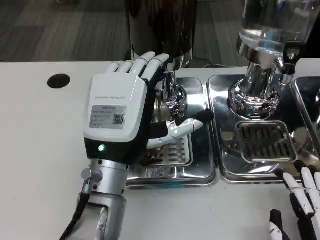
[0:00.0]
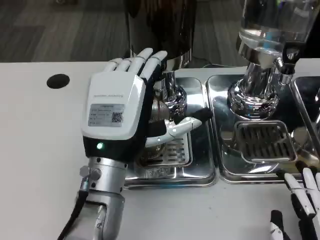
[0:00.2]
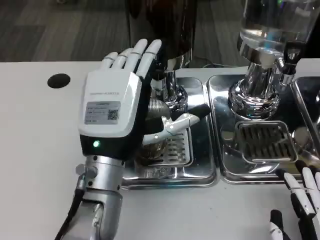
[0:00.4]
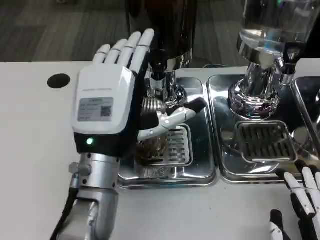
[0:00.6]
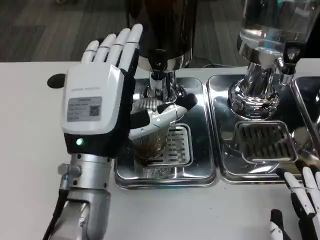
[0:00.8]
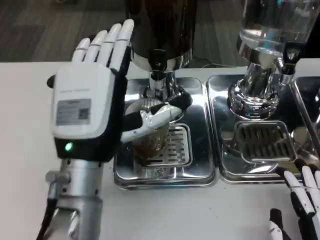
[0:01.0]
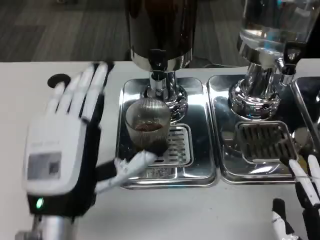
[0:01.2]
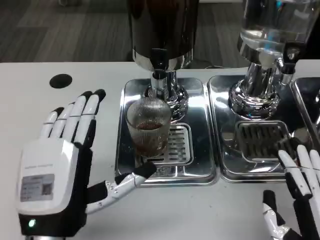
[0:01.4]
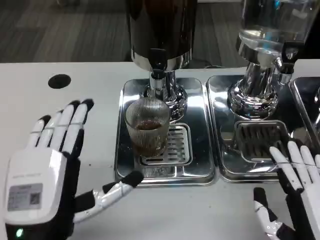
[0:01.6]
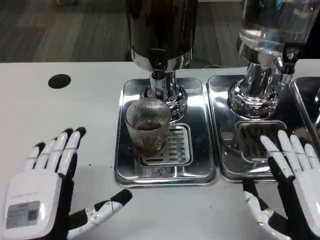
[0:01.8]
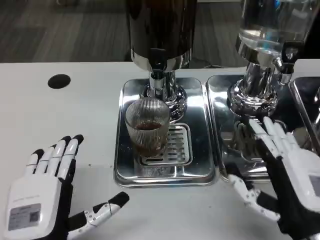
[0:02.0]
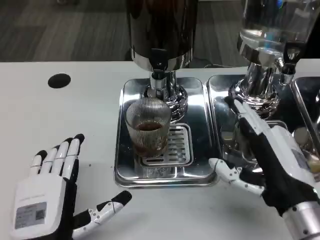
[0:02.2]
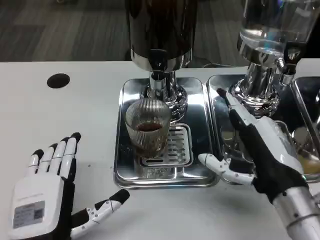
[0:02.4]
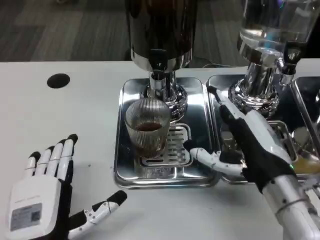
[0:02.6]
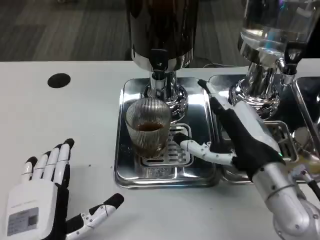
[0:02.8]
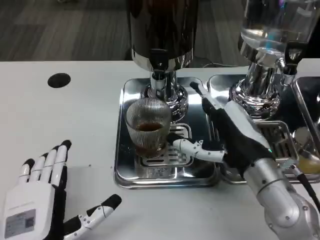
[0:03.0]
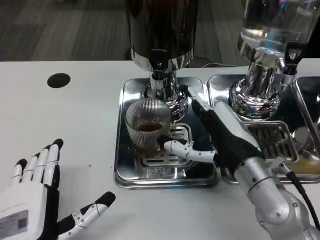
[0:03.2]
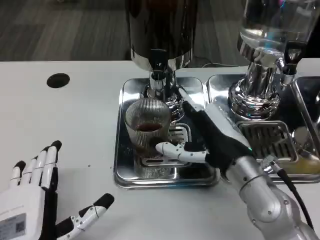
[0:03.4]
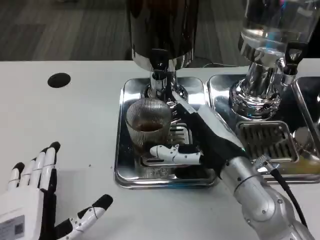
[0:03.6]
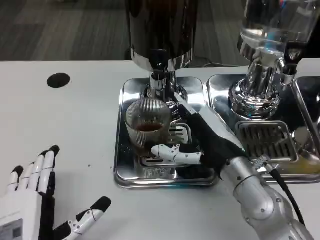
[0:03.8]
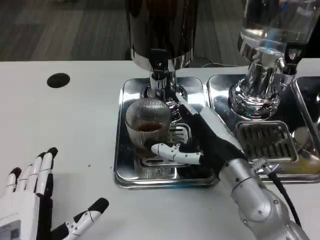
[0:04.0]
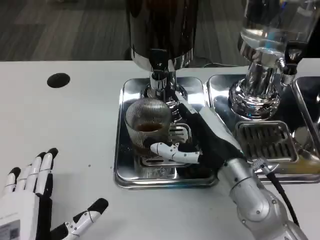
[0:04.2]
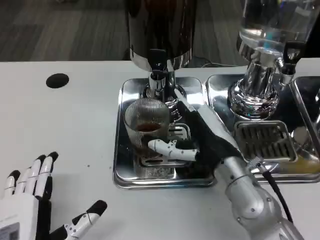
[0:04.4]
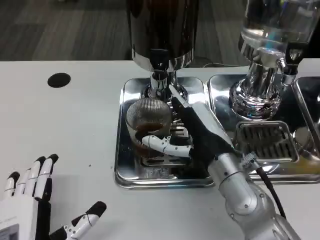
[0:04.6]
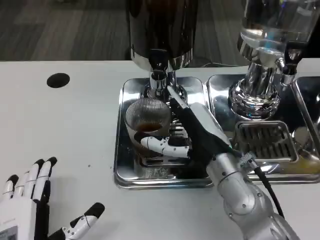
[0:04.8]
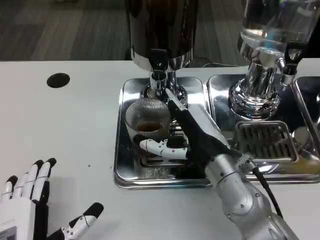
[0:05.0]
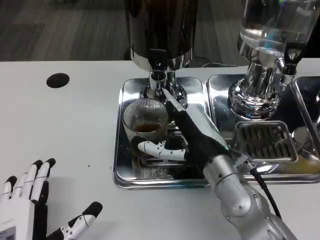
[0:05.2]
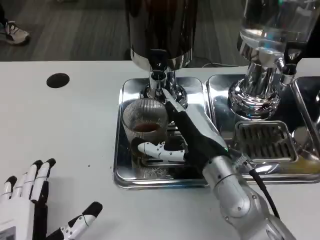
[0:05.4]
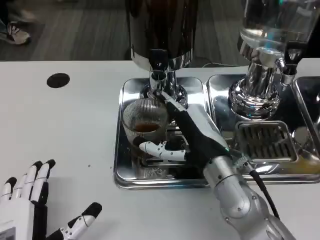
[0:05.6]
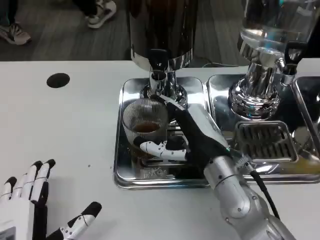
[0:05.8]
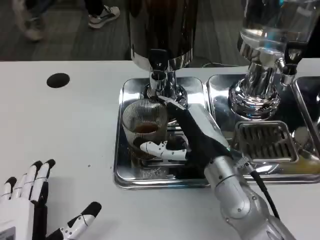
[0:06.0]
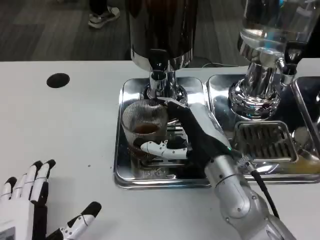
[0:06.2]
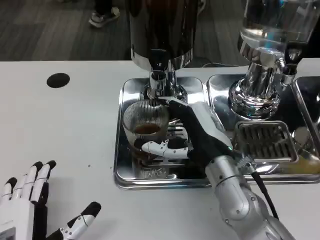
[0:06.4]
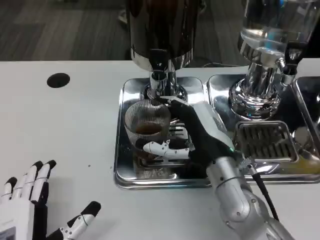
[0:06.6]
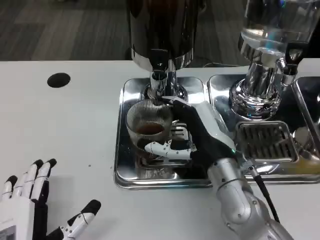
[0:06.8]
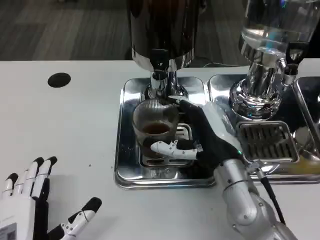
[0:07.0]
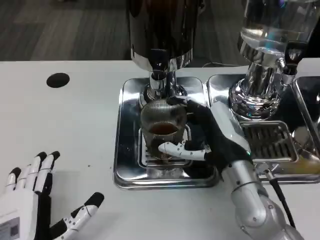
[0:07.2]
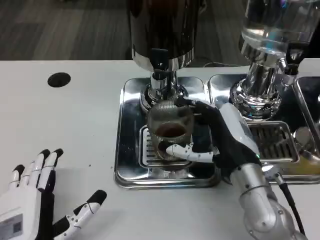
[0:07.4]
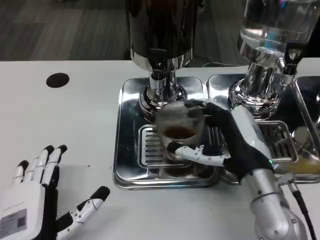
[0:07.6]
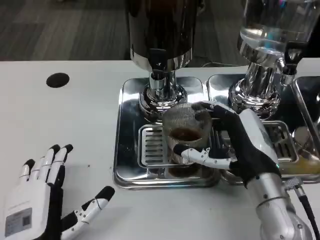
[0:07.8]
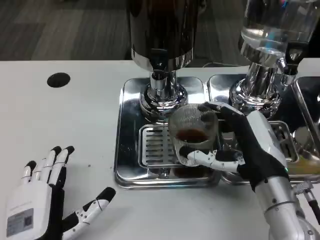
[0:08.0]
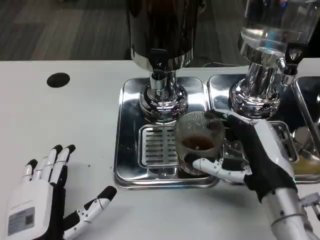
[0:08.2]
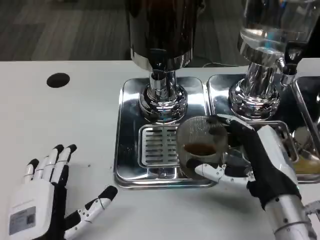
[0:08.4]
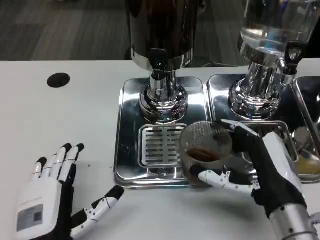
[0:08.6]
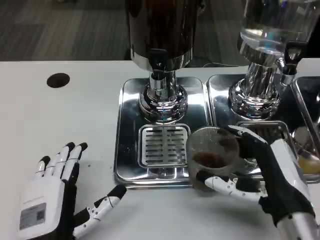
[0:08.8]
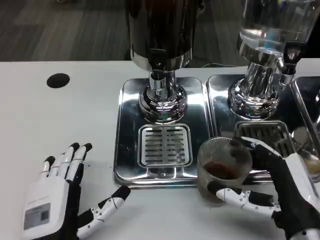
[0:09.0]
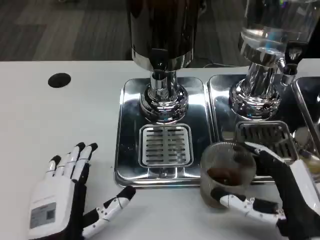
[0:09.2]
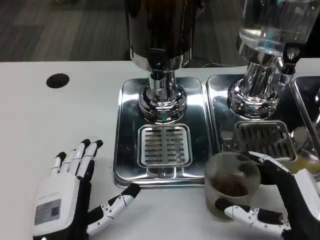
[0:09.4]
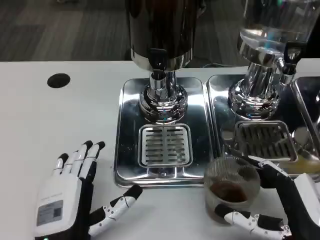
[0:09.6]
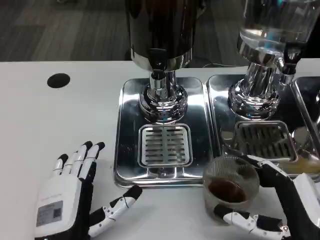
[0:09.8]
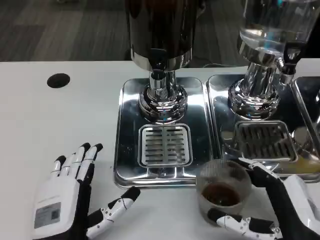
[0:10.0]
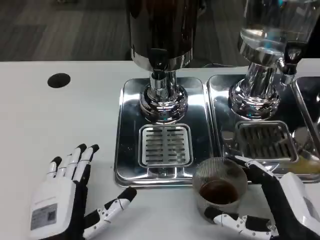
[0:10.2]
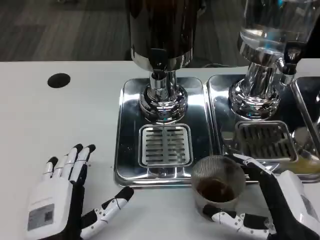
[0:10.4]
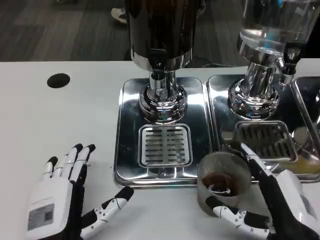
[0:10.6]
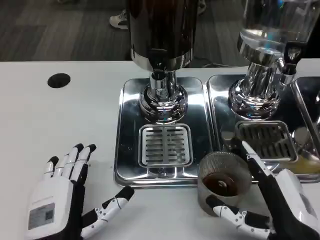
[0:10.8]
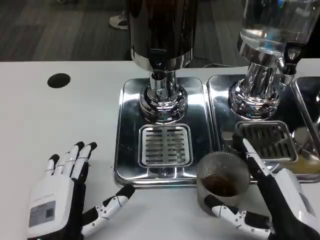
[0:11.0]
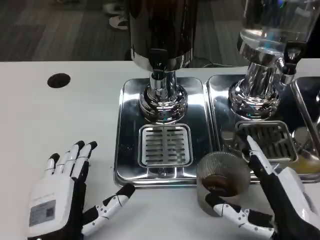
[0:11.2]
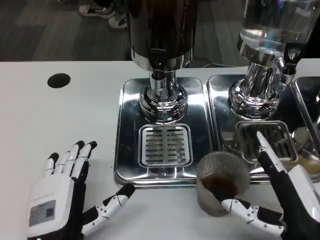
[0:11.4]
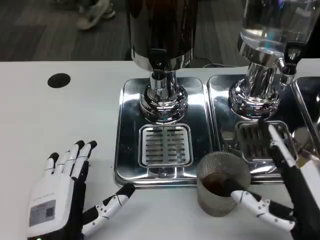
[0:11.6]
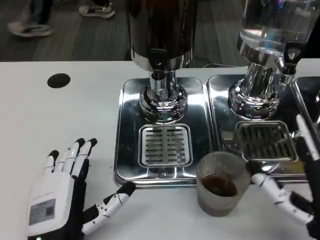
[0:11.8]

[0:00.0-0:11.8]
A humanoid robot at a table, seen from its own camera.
Task of the whole recording: Grasp the cup under the faucet to collect the drink, then remove the cup.
0:00.0 to 0:01.4: The left hand shifts about 10 cm backward and to the left.
0:01.4 to 0:03.0: The right hand shifts about 15 cm forward and to the left, while the left hand shifts roughly 5 cm downward.
0:04.4 to 0:06.0: The hands make only small movements.
0:07.4 to 0:08.8: The right hand goes roughly 10 cm backward.
0:08.8 to 0:11.8: The hands move only a little.

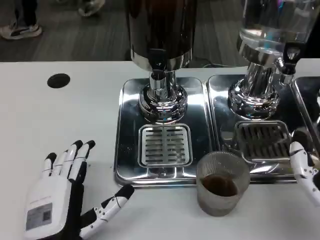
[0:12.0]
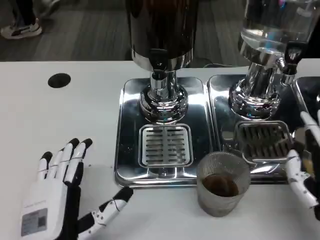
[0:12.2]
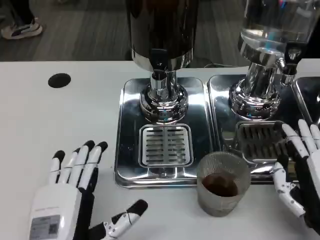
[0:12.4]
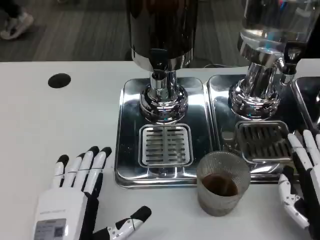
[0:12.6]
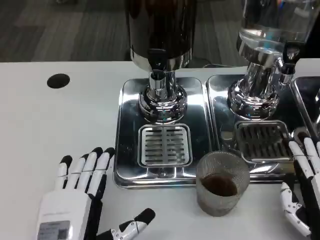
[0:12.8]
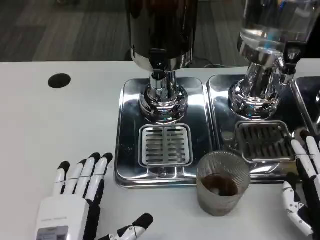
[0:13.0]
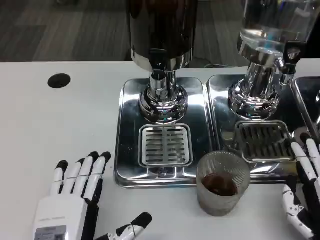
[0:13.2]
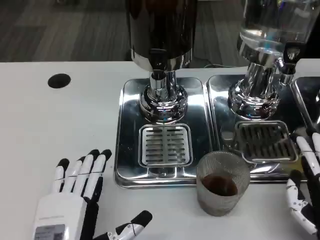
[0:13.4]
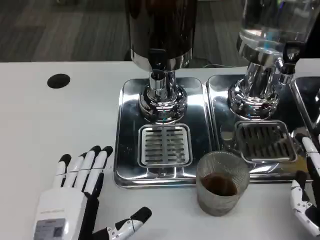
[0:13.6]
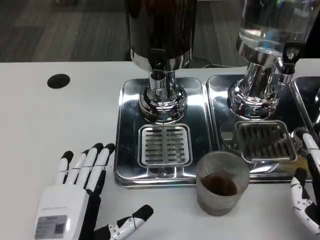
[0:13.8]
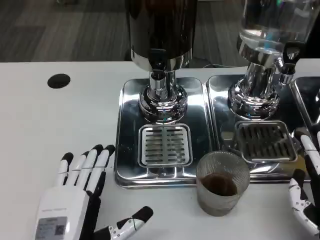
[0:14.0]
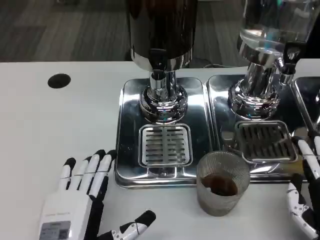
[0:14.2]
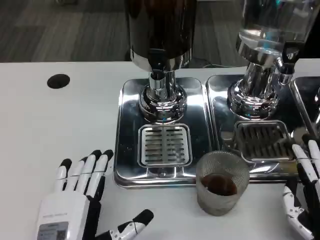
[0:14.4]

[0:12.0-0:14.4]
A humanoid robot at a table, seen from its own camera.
Task of the whole recording: Grasp the cup under the faucet to collect the drink, then remove the cup.
0:12.0 to 0:13.2: The right hand travels downward by about 5 cm.
0:13.2 to 0:14.4: The hands stay close to where they were, moving slightly.

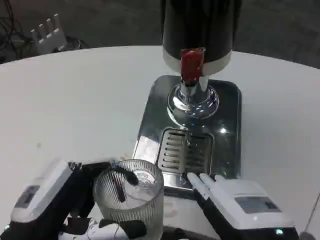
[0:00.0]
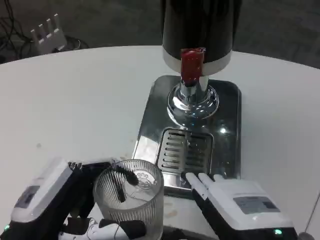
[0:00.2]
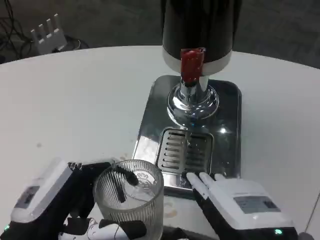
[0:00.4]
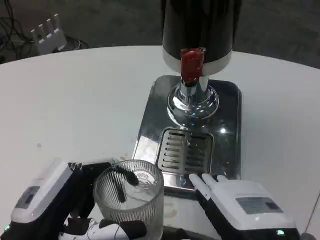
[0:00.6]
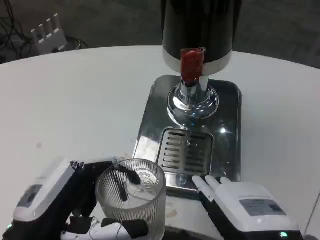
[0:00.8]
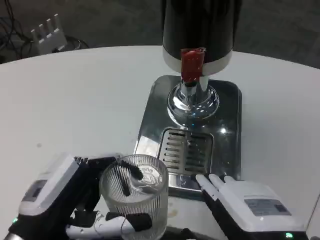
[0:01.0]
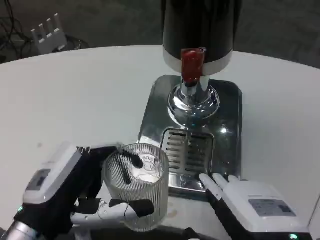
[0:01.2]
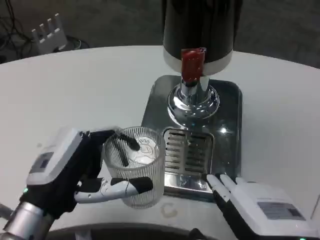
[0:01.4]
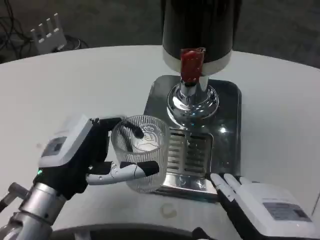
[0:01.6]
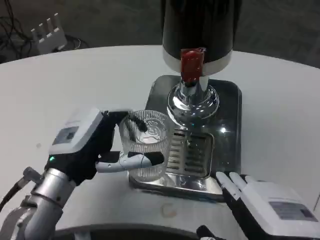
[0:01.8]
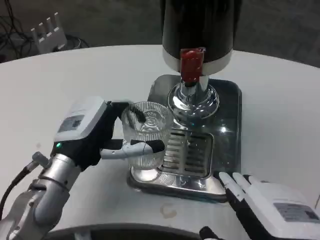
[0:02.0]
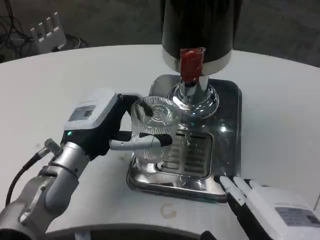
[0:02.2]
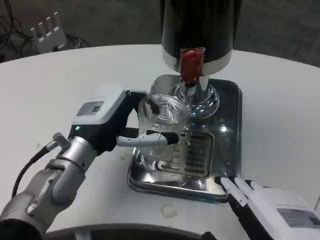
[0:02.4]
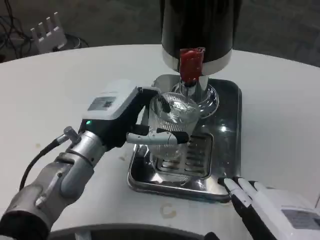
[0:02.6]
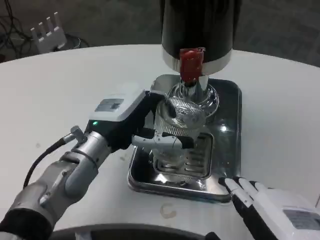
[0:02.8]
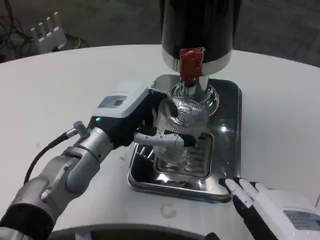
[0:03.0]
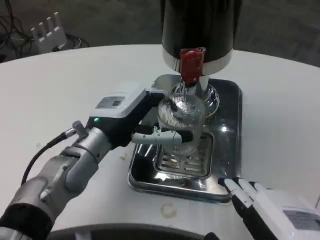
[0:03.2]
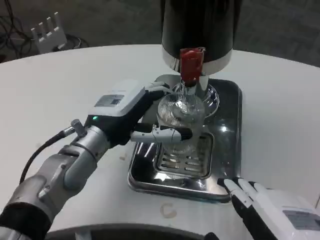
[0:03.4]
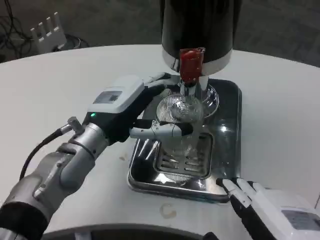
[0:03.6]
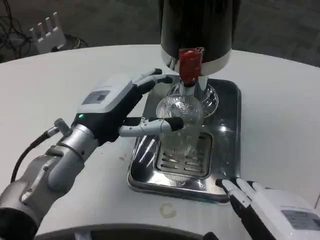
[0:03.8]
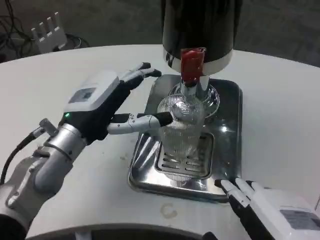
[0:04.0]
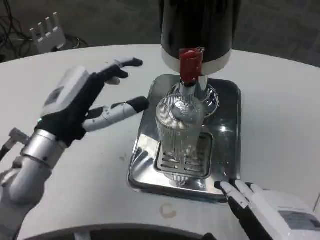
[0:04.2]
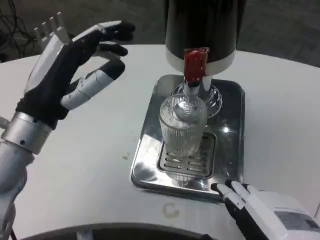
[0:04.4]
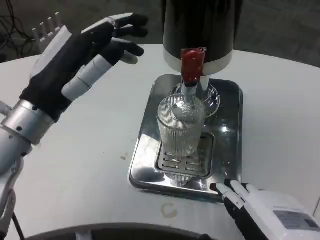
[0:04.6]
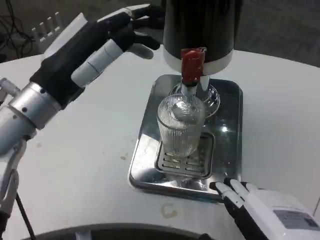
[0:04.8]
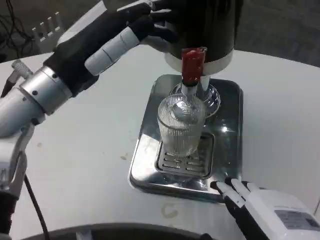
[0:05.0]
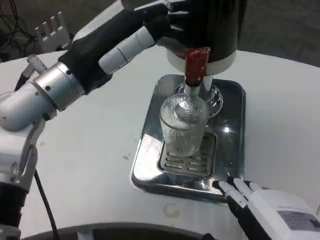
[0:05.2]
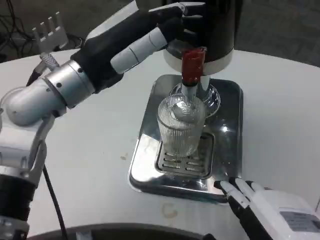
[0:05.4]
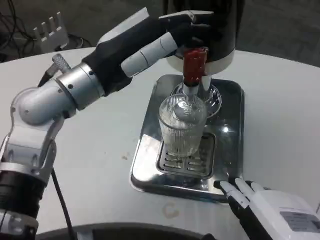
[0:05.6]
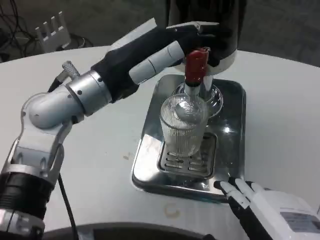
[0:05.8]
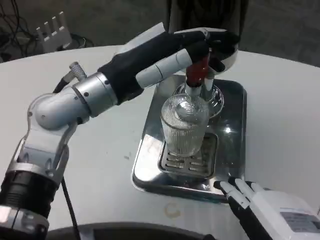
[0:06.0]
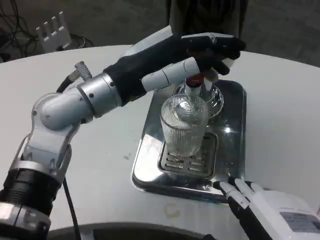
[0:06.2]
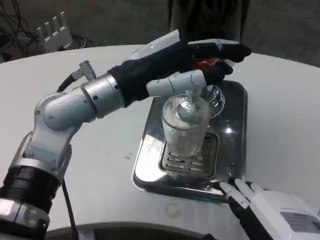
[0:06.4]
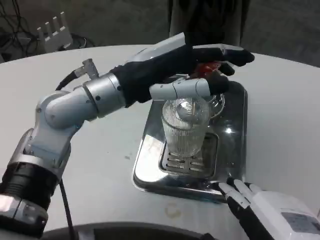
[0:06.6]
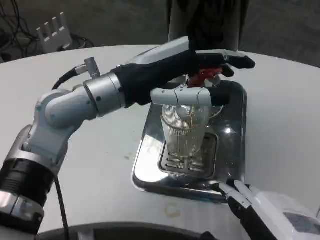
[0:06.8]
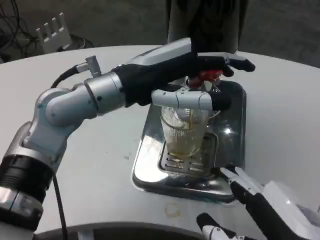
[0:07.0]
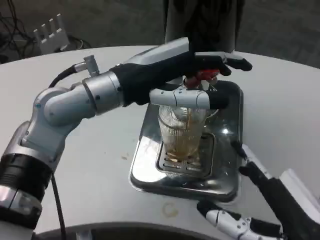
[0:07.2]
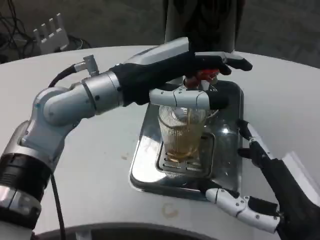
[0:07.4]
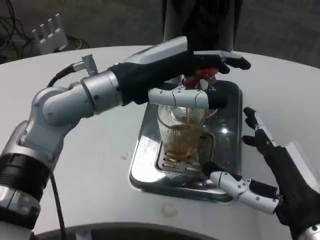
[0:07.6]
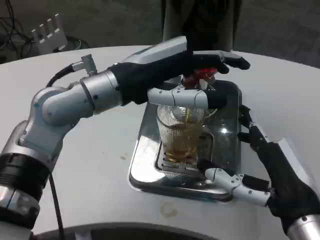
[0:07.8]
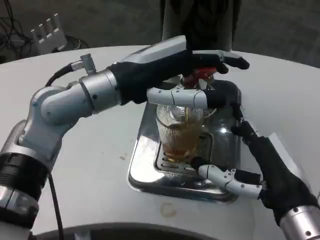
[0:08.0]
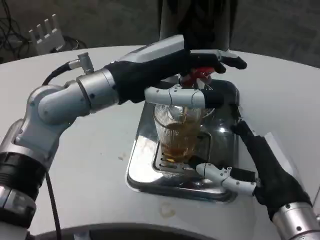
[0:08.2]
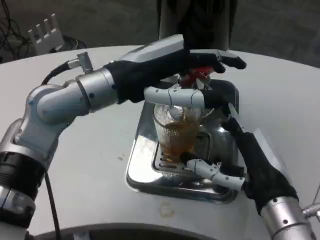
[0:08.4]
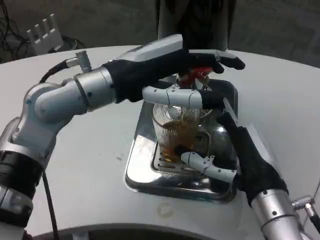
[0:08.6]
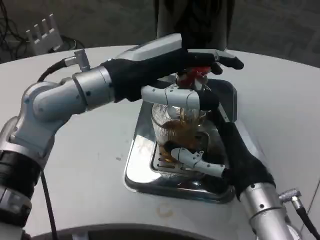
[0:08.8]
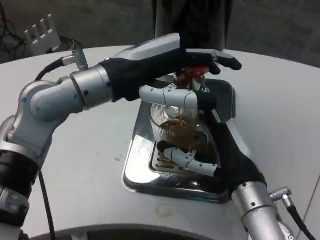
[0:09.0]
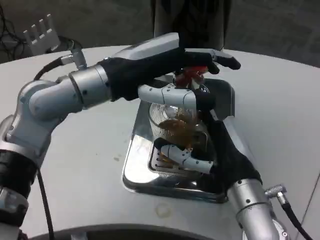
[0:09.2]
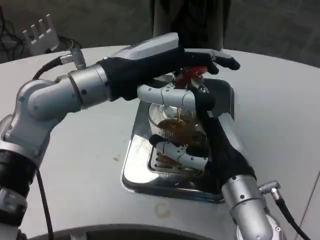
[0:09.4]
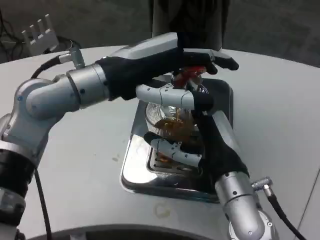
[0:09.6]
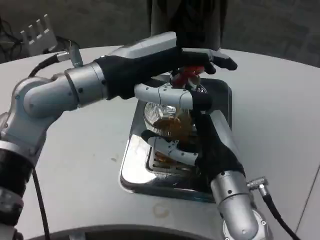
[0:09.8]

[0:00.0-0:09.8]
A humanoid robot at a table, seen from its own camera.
Task of the whole recording: Grasp the cup under the faucet to collect the drink, then remove the cup.
0:00.0 to 0:01.4: The left hand is displaced forward by some 5 cm.
0:01.4 to 0:02.8: The left hand shifts approximately 10 cm forward and to the right.
0:02.8 to 0:04.2: The left hand is displaced to the left by roughly 5 cm.
0:04.2 to 0:05.6: The left hand heads upward, covering roughly 10 cm.
0:07.0 to 0:08.4: The right hand is displaced forward by roughly 10 cm.
0:08.4 to 0:09.8: The right hand shifts roughly 5 cm to the left.
